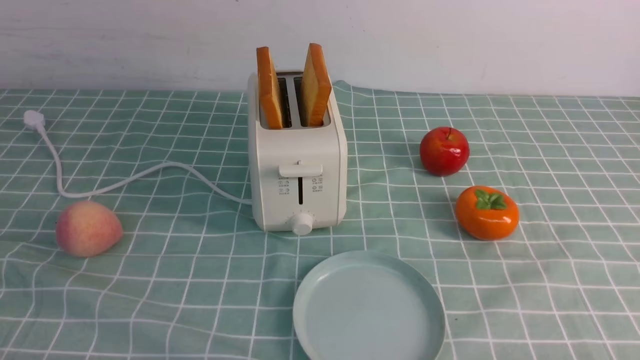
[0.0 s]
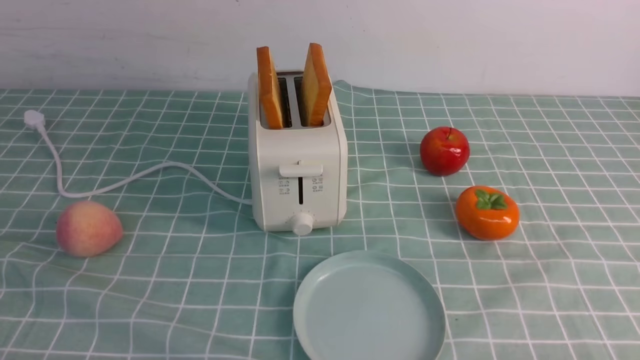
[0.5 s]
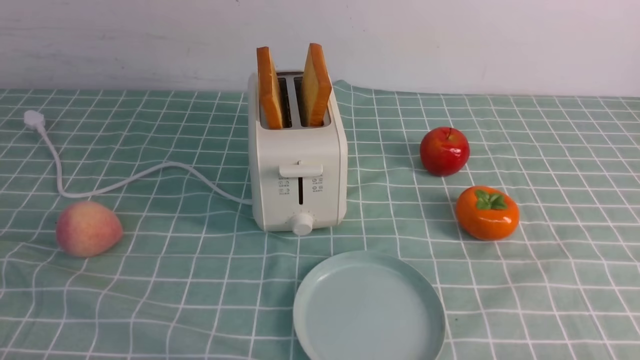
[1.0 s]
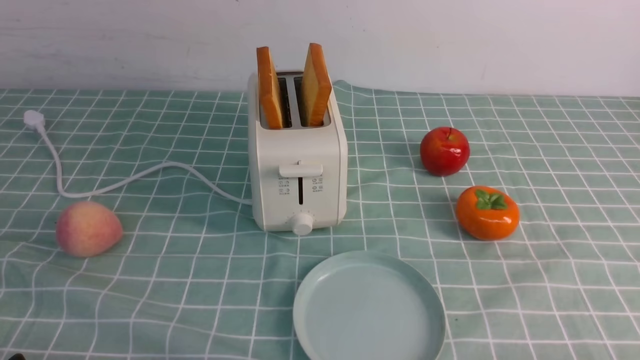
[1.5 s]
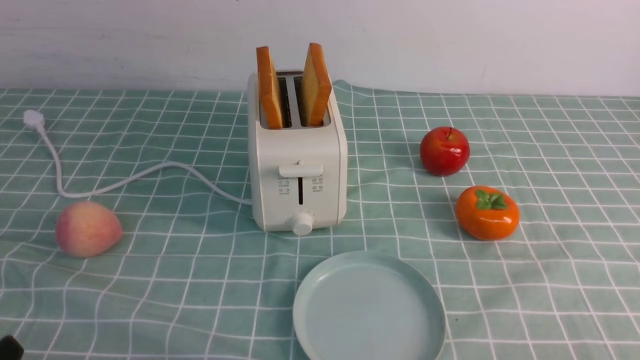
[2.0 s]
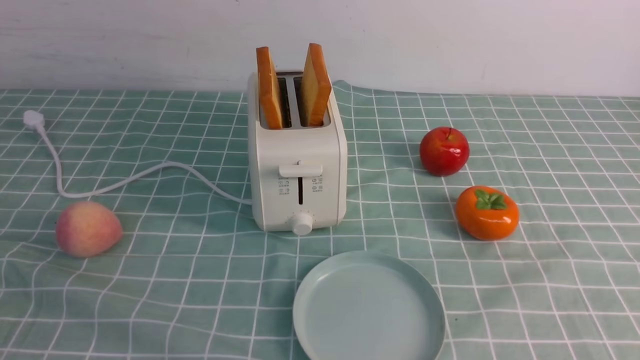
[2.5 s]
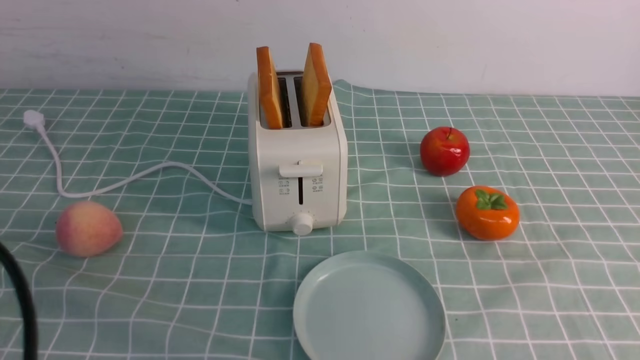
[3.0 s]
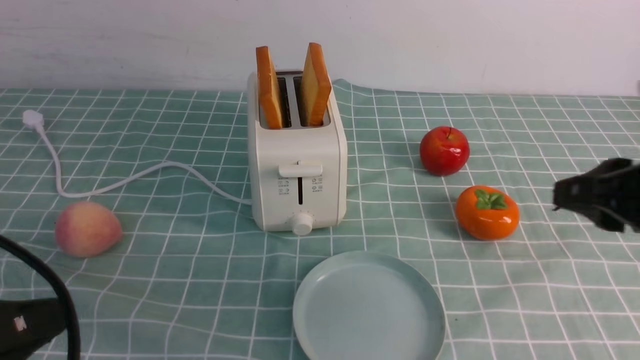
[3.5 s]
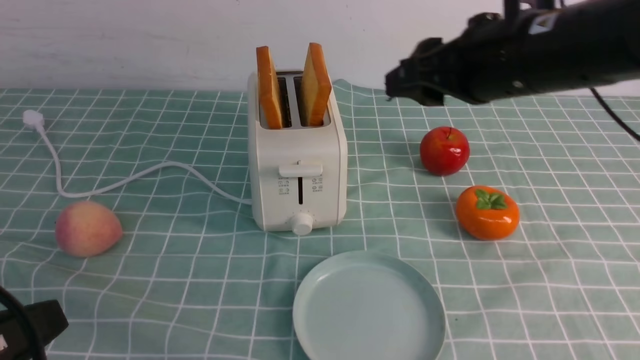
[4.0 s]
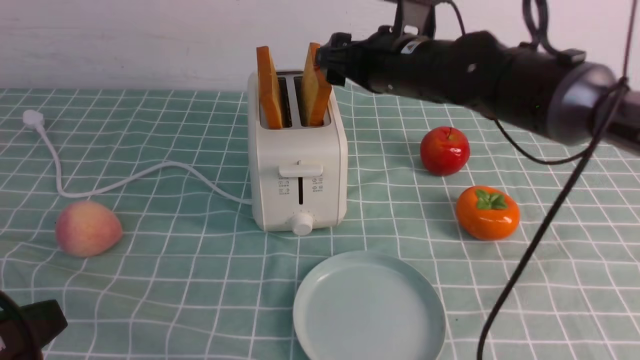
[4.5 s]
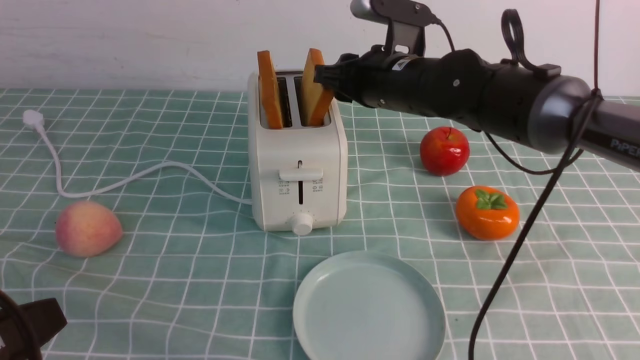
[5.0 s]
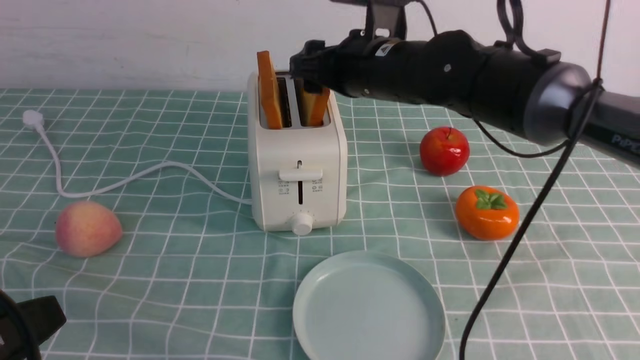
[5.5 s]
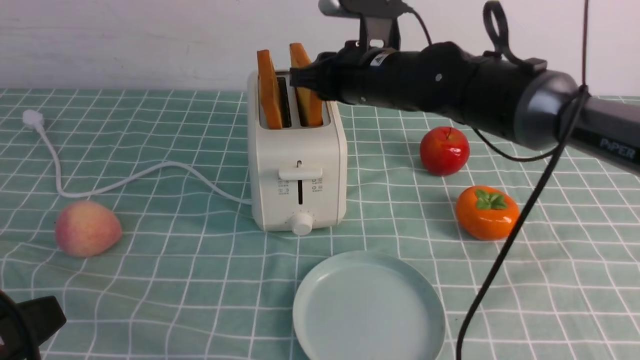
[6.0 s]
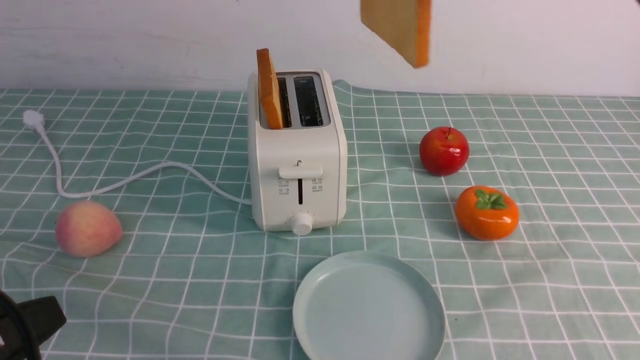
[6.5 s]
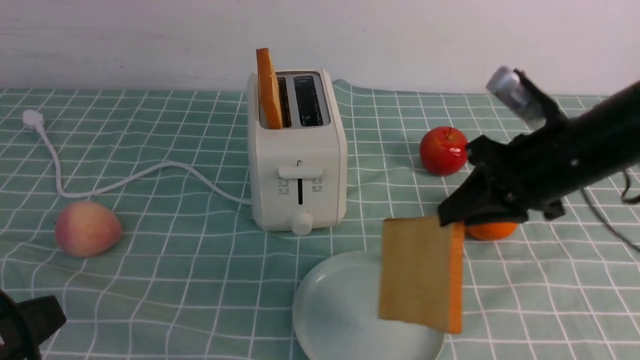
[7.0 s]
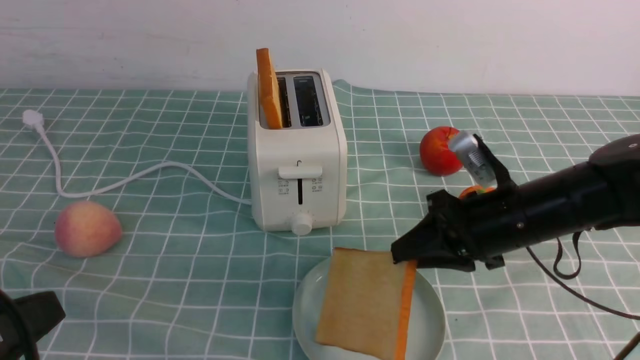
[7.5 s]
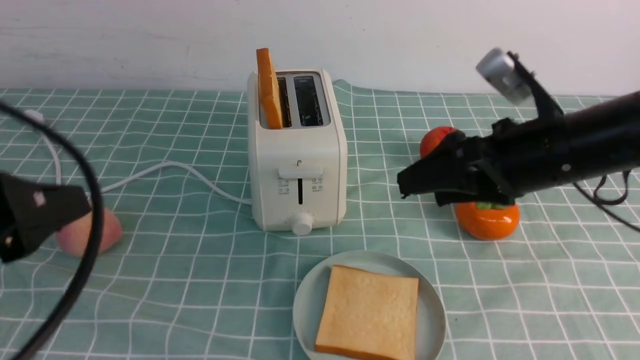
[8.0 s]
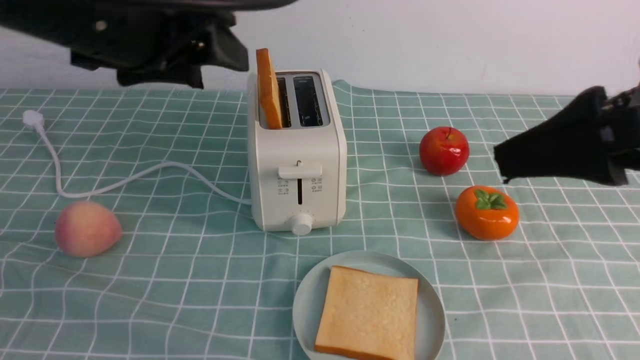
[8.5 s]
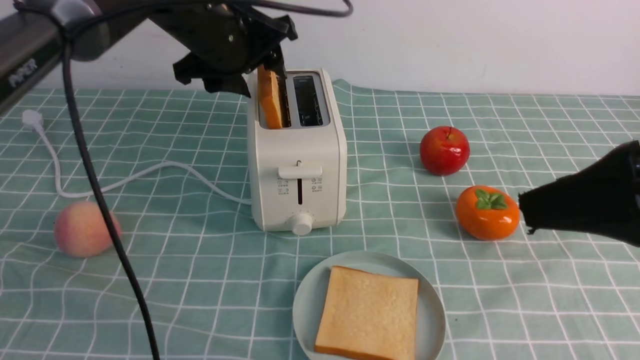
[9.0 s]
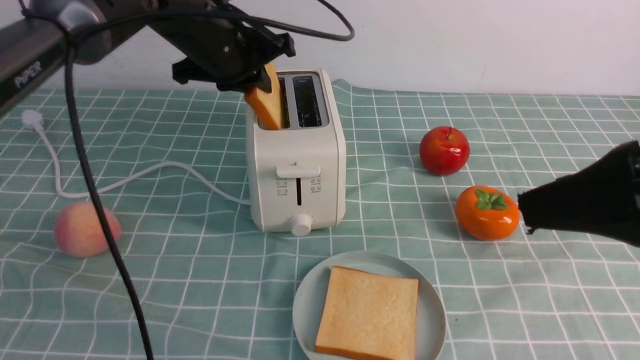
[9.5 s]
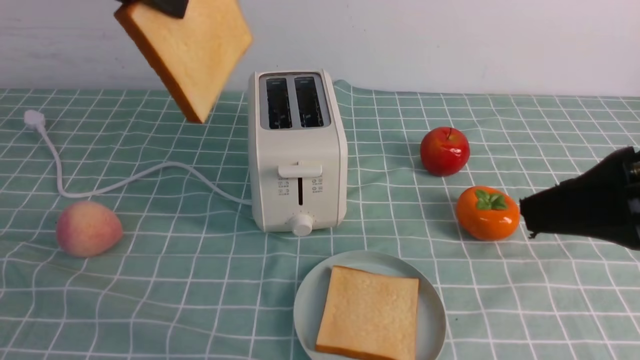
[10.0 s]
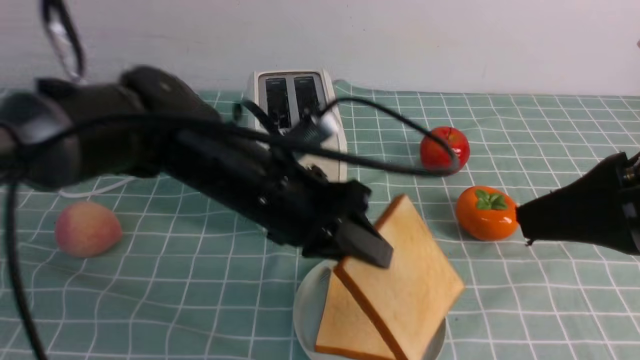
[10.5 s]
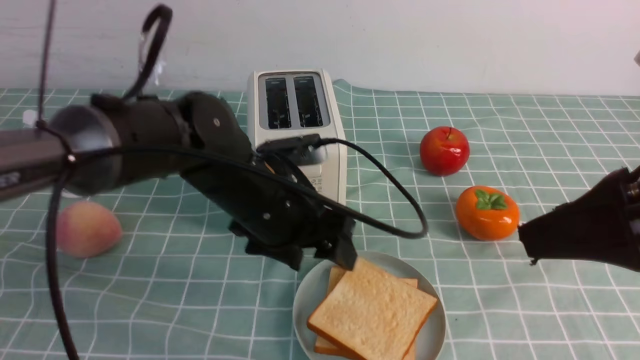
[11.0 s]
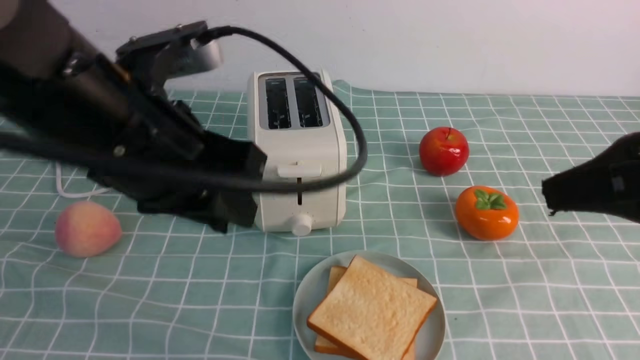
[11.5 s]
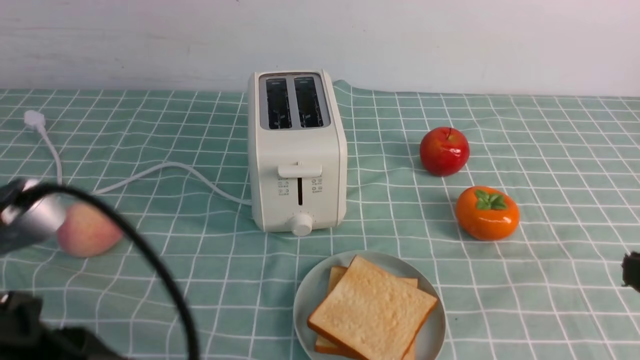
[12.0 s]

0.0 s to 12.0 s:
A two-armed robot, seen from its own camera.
Task of the whole recording: take toasted bread from bread machine on blue coffee table place on plate.
Step, 0.0 to 6.0 s: use the right arm to take out a slice of bread.
Step, 6.5 to 8.0 s: use the right arm to put a slice of bread into the plate.
Step, 8.5 to 9.5 s: use the left arm to take out a slice of bread.
Step, 10.0 to 11.5 s: use the left arm to put a slice of bread into the empty plate.
2.0 to 4.0 s: The right gripper travels forward, to the left and upward by roughly 35 cm. The left gripper is displaced upward by roughly 10 cm.
4.0 to 6.0 s: The right gripper moves forward, to the left and downward, approximately 15 cm, and closes its fingers.
6.0 to 8.0 s: The right gripper moves up and down over approximately 20 cm, changing direction 2 times, and opens. The left gripper moves forward and upward, some 10 cm.
8.0 to 10.0 s: The left gripper is displaced forward, upward and to the right by approximately 20 cm, and closes up; the right gripper travels backward and upward by some 15 cm.
10.0 to 12.0 s: The right gripper travels downward and backward by about 10 cm, and closes its fingers. Meanwhile the left gripper shifts about 25 cm backward and downward, and opens and closes again.
